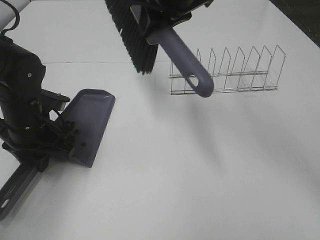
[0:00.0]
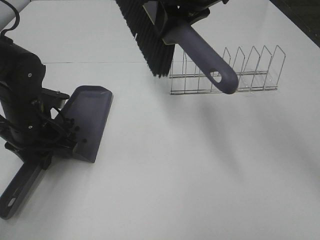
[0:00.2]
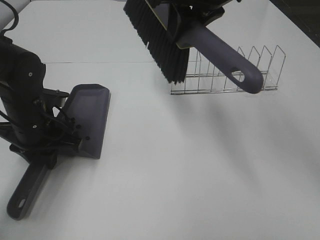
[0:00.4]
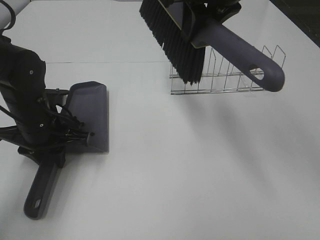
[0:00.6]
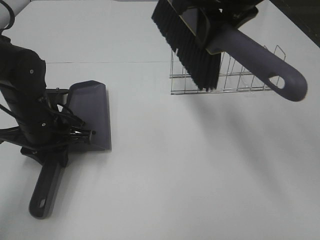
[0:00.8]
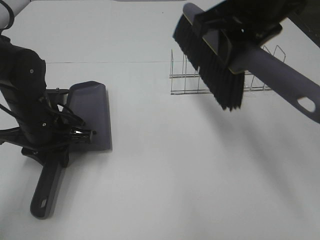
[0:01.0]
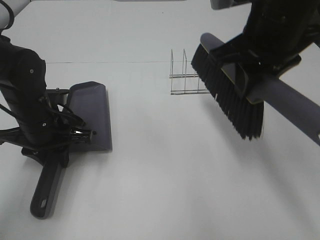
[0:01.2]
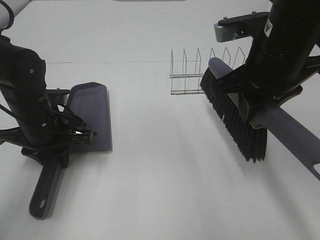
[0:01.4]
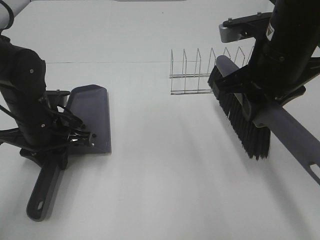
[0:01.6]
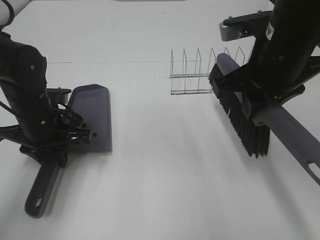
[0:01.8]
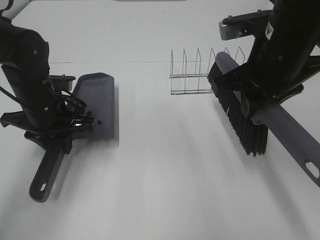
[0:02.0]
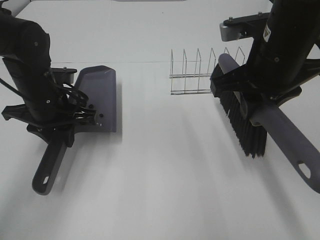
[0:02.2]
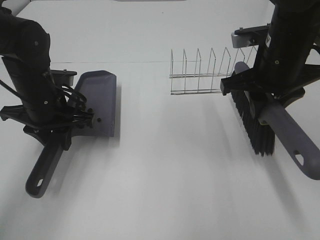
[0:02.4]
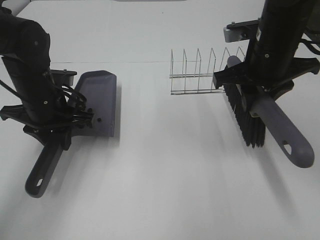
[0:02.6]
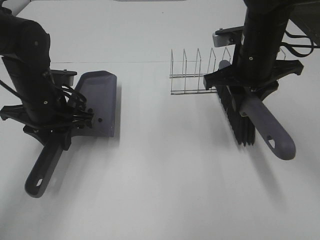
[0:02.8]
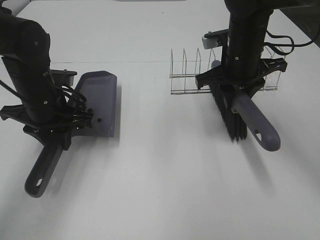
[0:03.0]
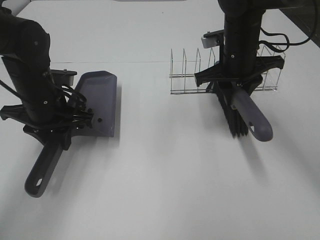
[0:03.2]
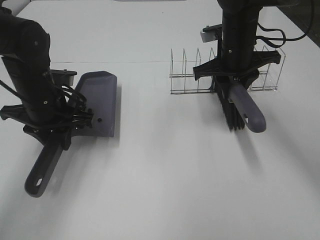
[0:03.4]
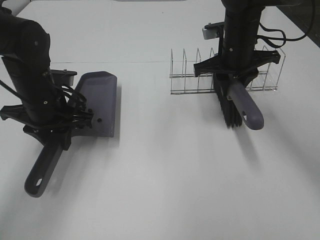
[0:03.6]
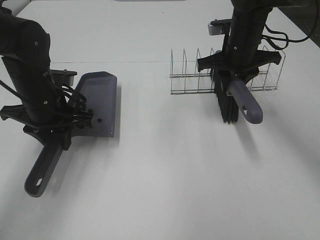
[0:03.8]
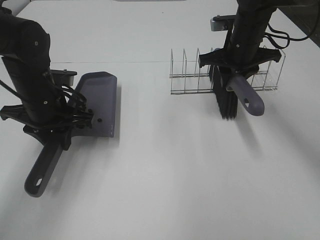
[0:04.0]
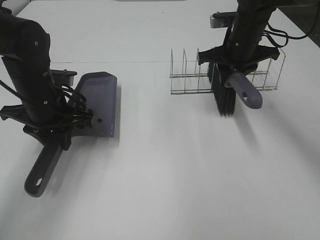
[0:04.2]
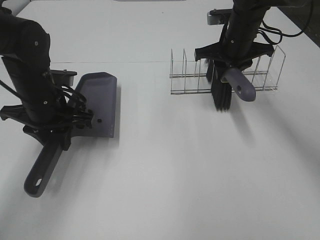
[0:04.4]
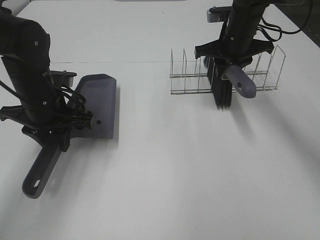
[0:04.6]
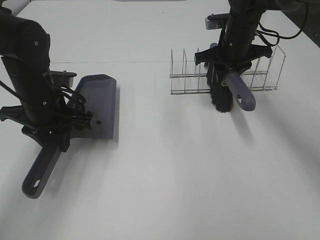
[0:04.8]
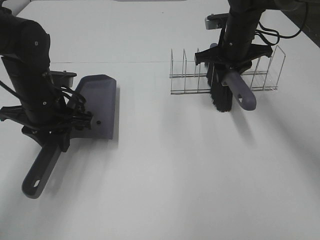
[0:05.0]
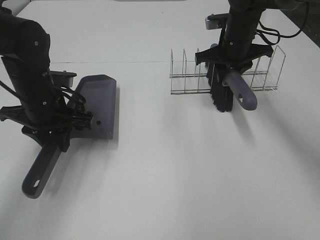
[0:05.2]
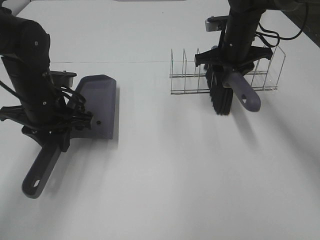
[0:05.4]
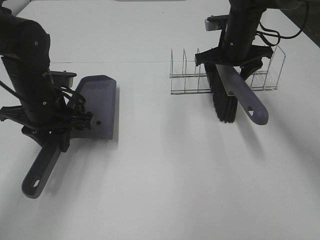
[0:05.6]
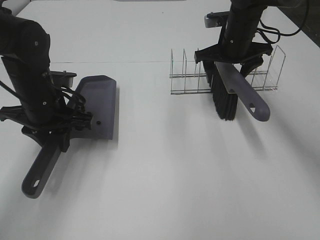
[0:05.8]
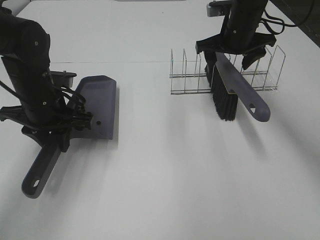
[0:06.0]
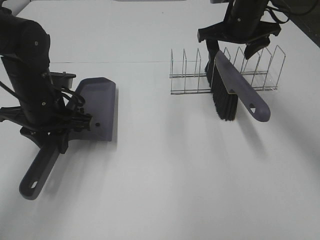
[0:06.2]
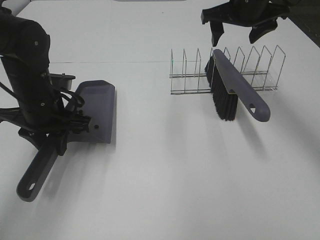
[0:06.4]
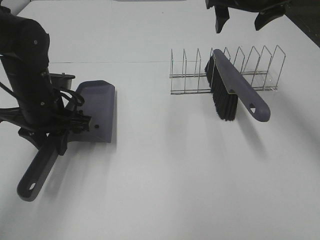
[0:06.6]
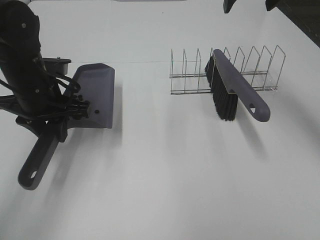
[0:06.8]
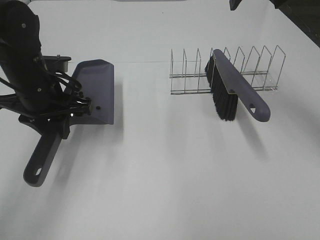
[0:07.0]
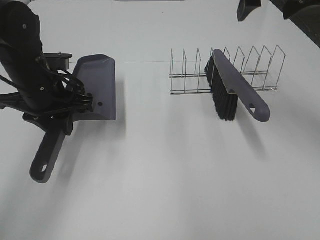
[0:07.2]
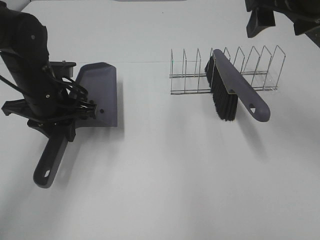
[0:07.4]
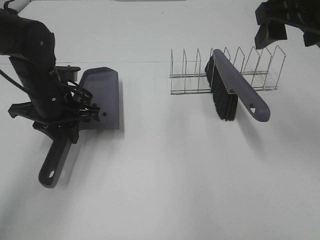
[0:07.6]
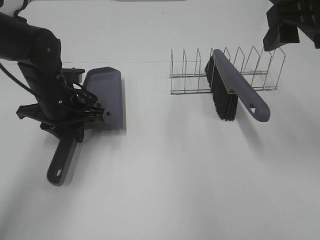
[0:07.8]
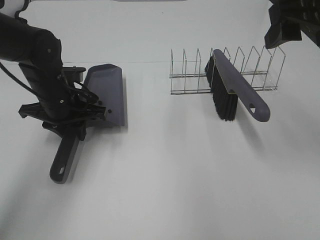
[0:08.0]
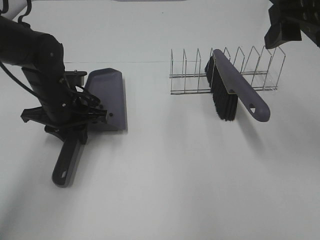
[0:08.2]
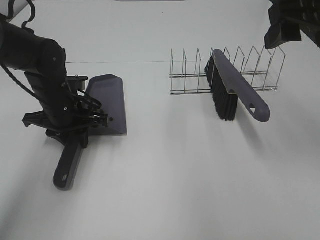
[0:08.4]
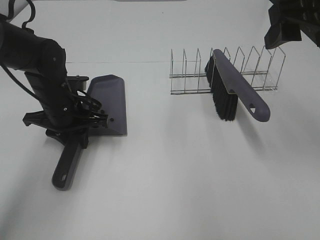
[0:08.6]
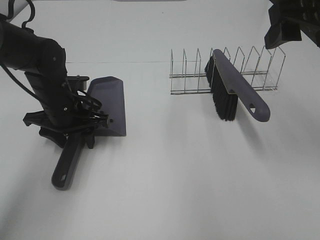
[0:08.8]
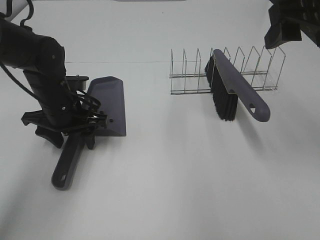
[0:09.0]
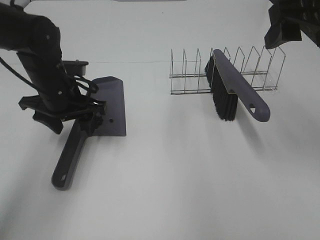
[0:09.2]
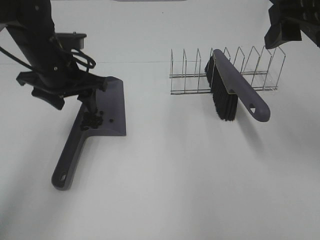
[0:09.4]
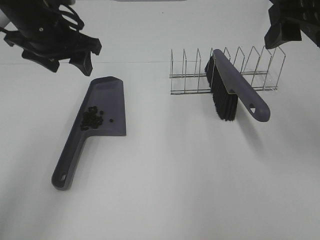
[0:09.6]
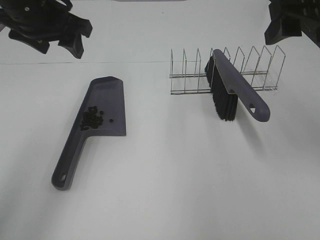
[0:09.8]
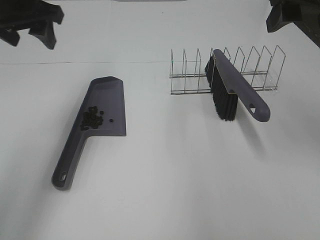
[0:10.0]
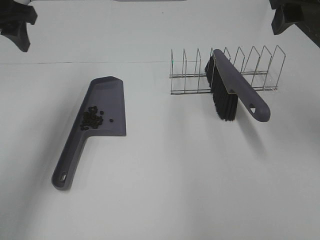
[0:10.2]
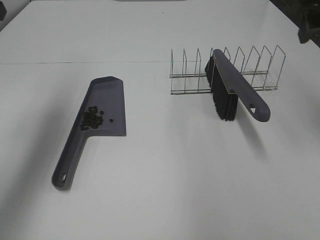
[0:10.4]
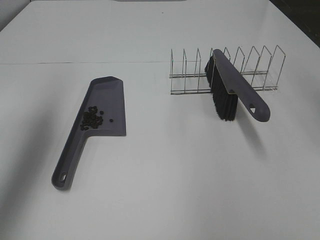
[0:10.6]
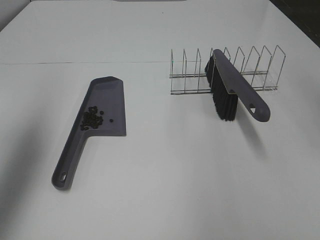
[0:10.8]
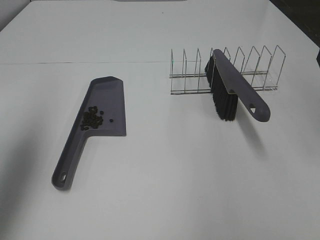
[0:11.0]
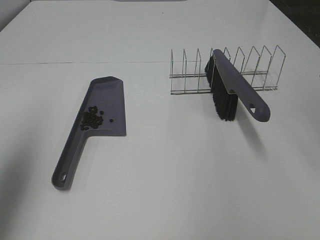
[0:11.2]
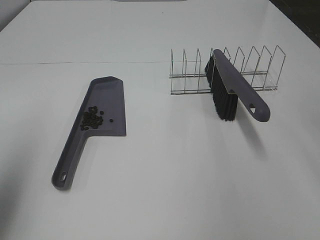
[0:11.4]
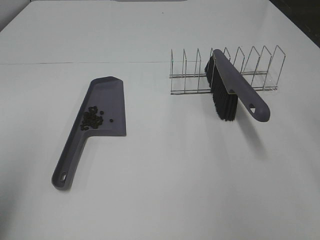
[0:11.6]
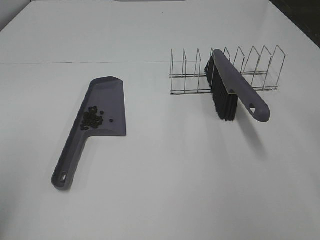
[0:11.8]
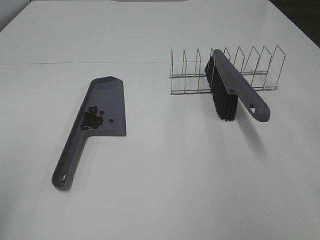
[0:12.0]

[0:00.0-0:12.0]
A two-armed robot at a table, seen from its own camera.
Task of the whole recording: Sweep Coffee Bean.
Step, 0:00.0 to 0:06.0: Right hand:place the broom on the rack.
Step, 0:06.2 to 0:09.0: Left hand:place the dustpan on the table.
0:00.0 to 0:01.6: The right gripper moves backward, to the right and downward, approximately 15 cm.
0:01.6 to 0:03.0: The right gripper shifts some 15 cm forward and downward.
0:03.0 to 0:04.4: The right gripper is displaced forward by about 10 cm.
0:04.4 to 0:06.0: The right gripper opens.
0:06.0 to 0:07.6: The right gripper shifts approximately 20 cm backward and upward.
0:07.6 to 0:09.0: The left gripper opens.
0:09.0 to 0:10.4: The left gripper goes roughly 25 cm upward and to the left; the right gripper ends up approximately 5 cm from where it was.
0:10.4 to 0:12.0: The left gripper is displaced backward by about 25 cm.

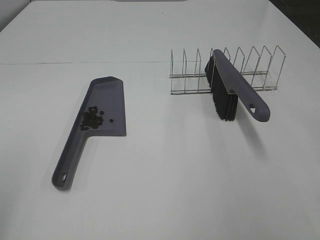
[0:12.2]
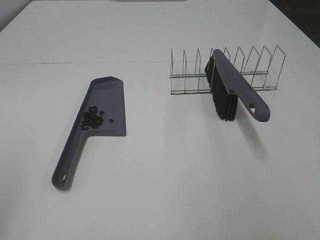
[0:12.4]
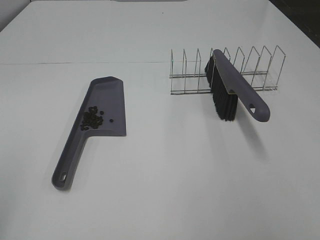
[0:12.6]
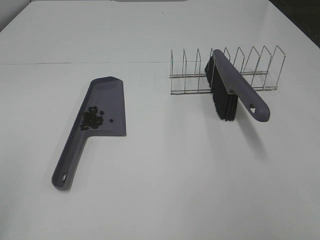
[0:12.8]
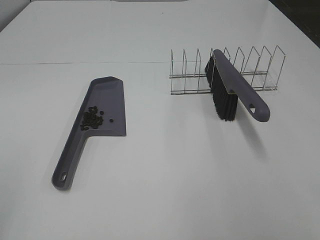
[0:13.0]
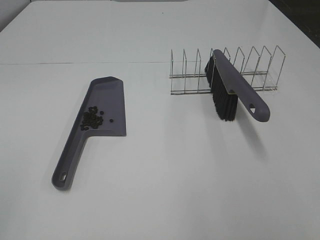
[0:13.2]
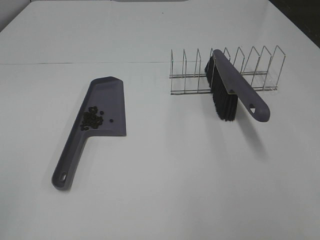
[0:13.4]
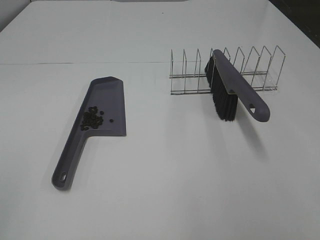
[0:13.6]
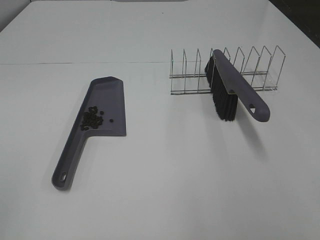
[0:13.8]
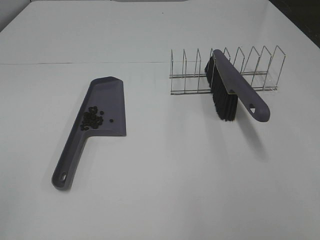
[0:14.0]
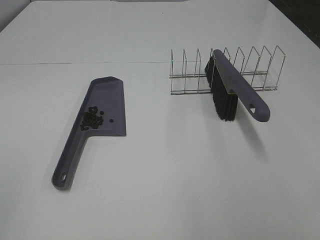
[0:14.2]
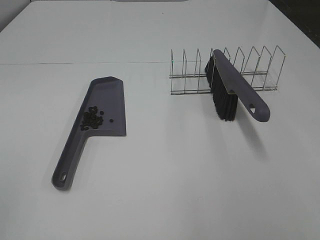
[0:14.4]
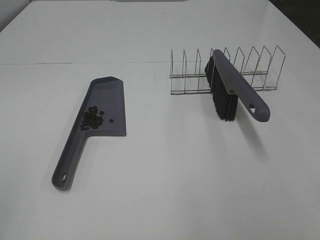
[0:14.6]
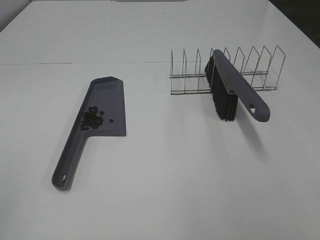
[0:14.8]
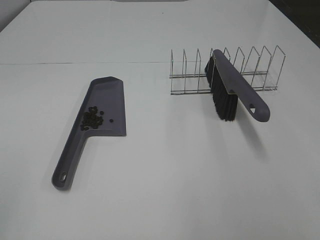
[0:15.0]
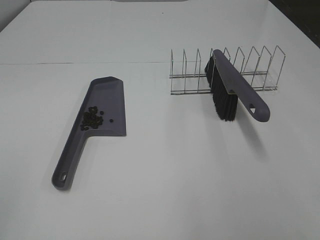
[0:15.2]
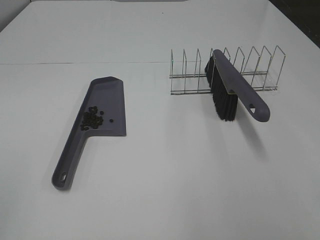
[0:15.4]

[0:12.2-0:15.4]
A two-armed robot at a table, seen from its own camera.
Task of the whole recording: Sweep Coffee Bean.
0:13.8 to 0:15.4: Both grippers stay put.

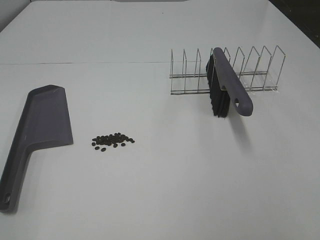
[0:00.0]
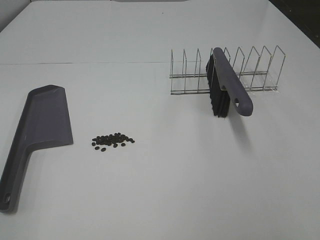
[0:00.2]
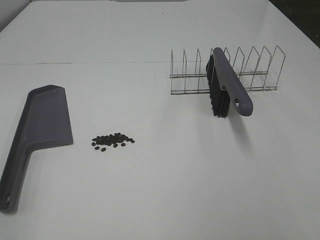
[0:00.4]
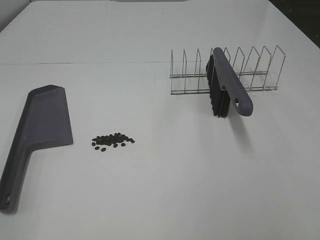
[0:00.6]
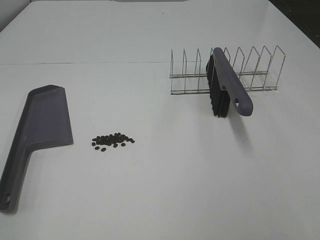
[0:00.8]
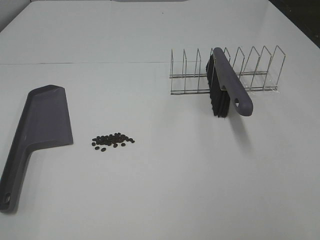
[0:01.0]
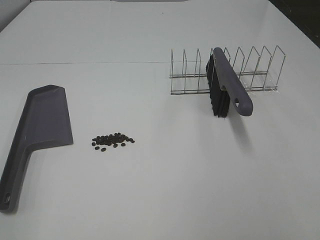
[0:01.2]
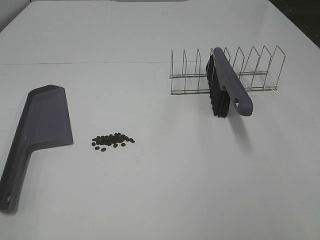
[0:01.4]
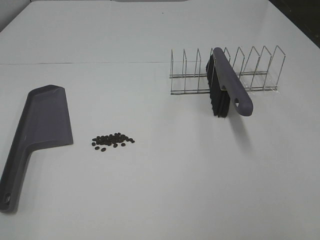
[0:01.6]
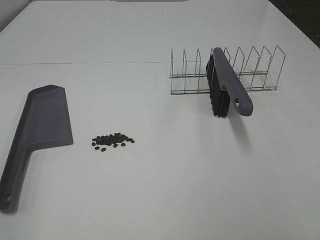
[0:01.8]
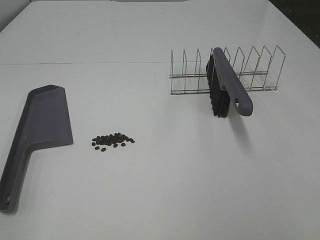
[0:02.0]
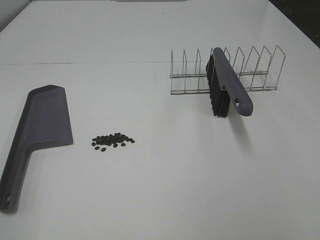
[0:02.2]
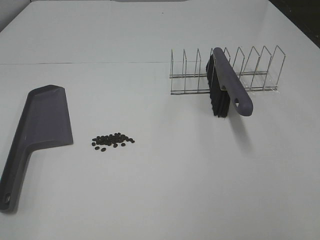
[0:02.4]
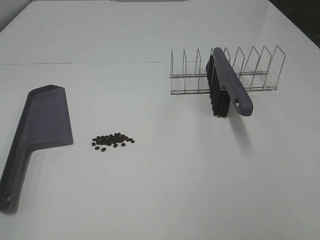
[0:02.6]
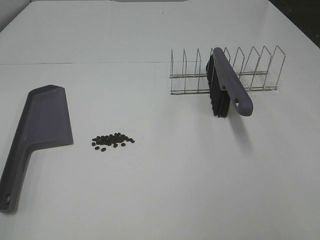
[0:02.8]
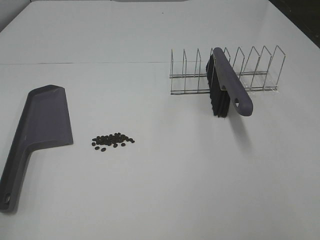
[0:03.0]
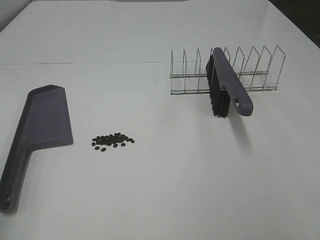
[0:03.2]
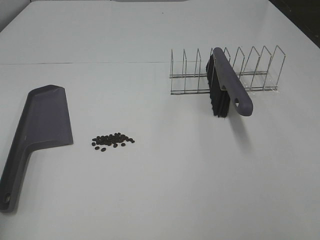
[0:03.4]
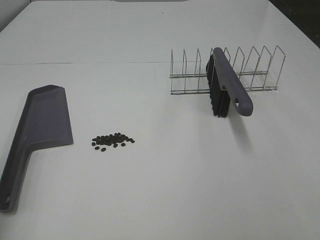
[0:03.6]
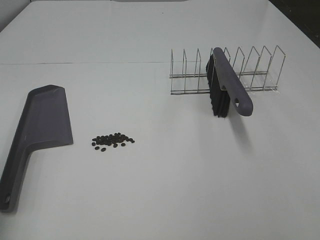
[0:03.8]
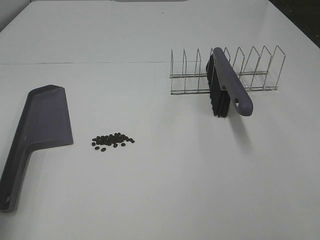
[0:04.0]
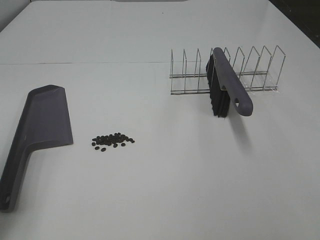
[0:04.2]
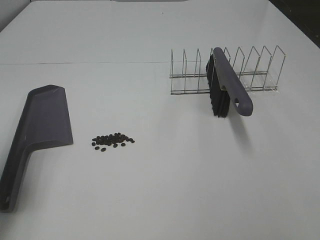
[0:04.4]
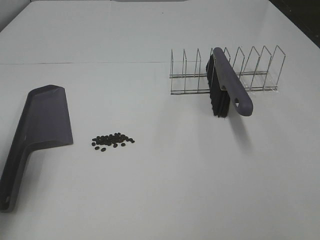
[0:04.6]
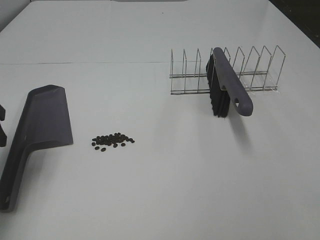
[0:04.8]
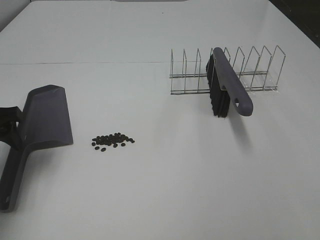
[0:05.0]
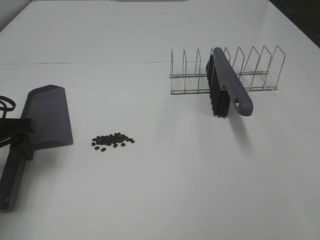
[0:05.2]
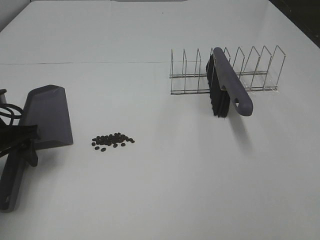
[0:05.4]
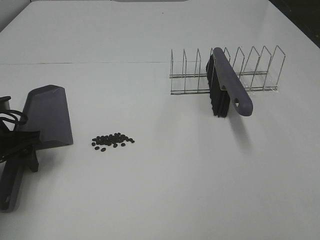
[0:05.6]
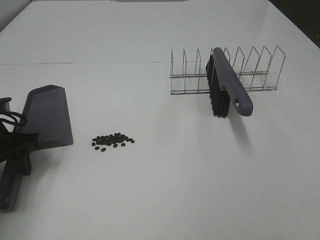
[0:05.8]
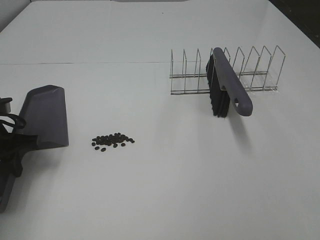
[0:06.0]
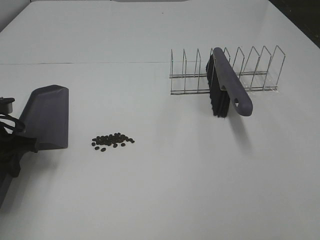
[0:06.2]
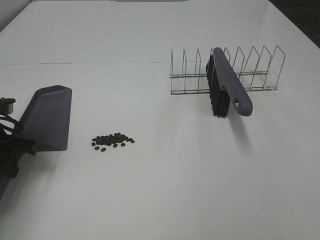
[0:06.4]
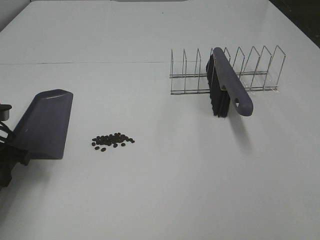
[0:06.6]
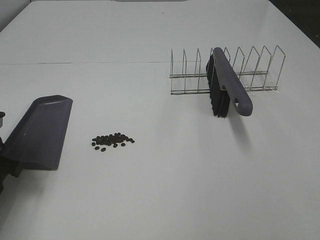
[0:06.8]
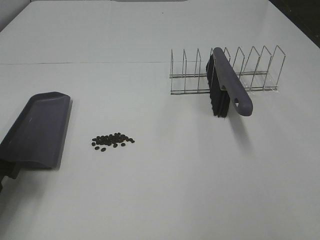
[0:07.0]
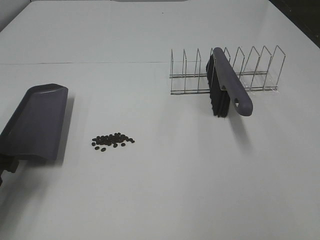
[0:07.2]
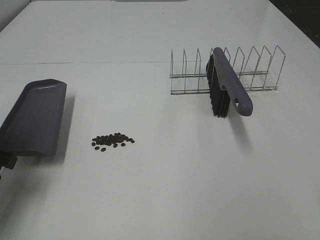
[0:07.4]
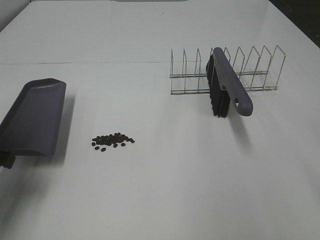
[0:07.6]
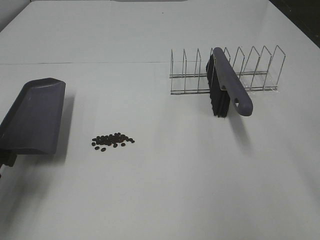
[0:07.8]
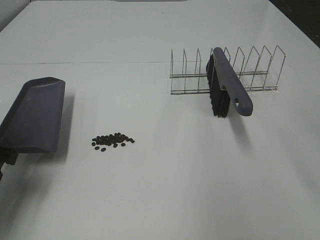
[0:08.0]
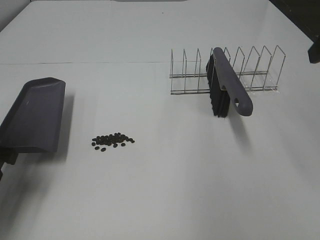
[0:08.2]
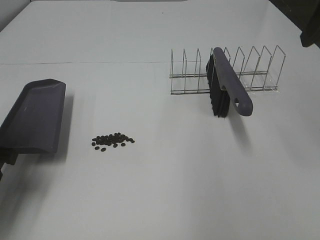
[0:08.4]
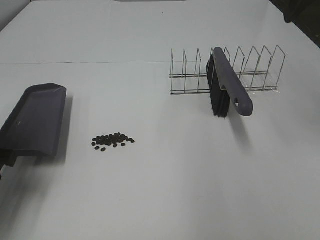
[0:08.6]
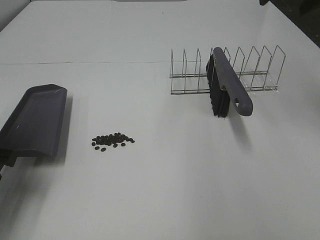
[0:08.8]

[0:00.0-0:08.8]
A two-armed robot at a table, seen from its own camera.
Task of the whole recording: Sweep Coffee Bean.
Step, 0:00.0 to 0:06.2: Left hand: grab the dustpan.
0:00.0 to 0:01.4: Neither gripper changes place.
0:03.0 to 0:04.4: The left gripper goes some 15 cm forward.
0:04.4 to 0:05.8: The left gripper travels downward and forward by some 15 cm.
0:05.8 to 0:07.4: The left gripper shifts roughly 5 cm backward, and closes its fingers.
